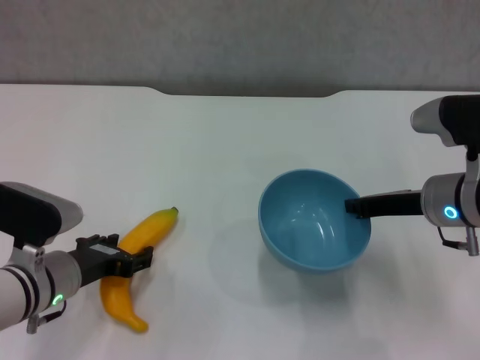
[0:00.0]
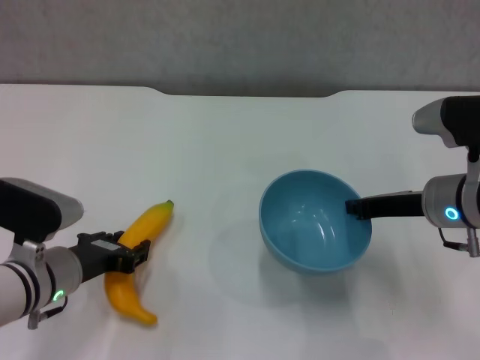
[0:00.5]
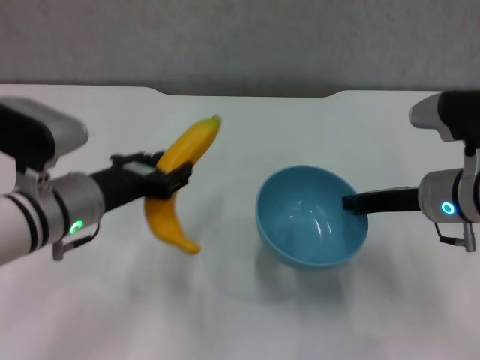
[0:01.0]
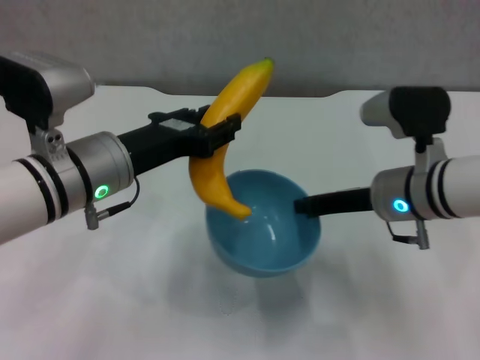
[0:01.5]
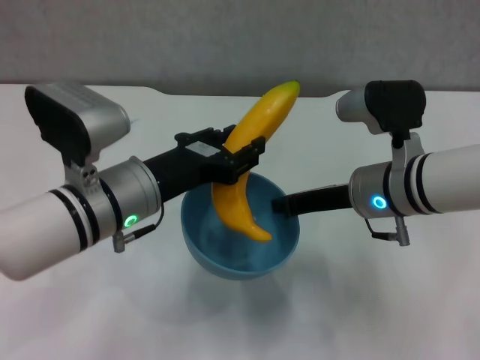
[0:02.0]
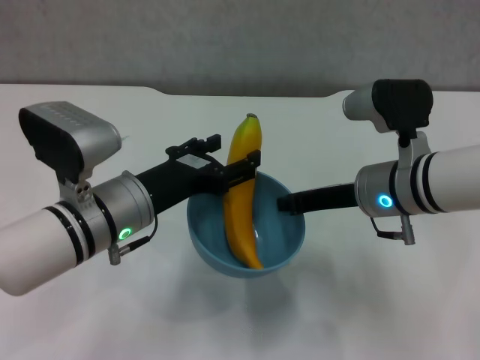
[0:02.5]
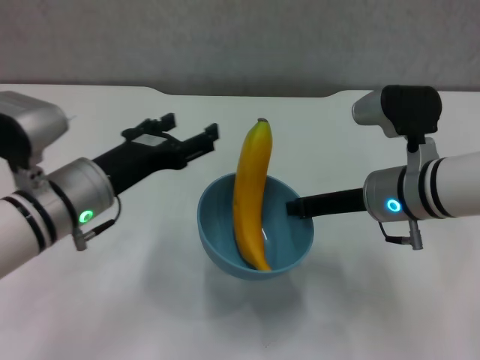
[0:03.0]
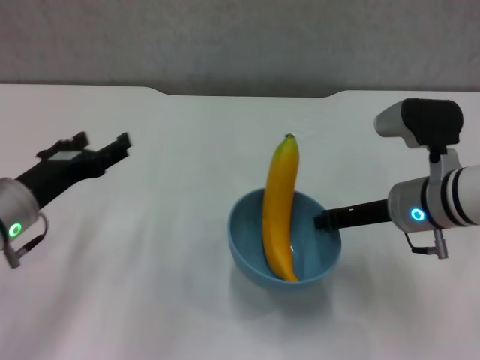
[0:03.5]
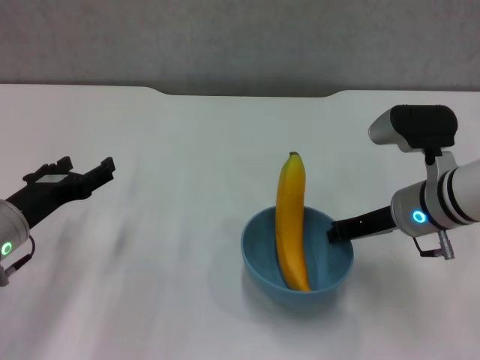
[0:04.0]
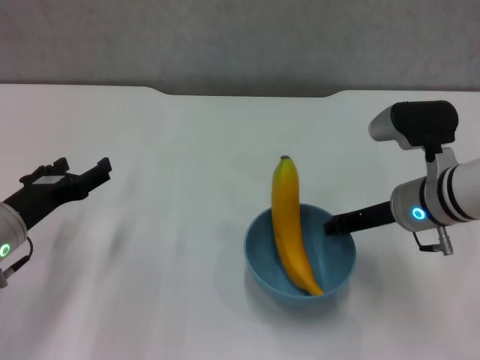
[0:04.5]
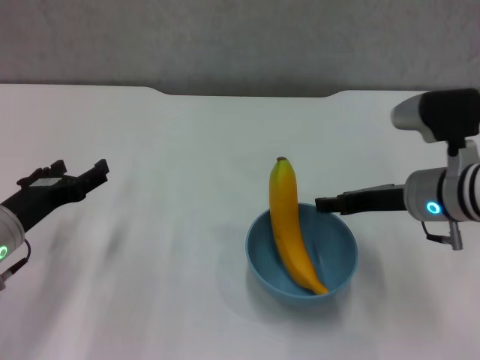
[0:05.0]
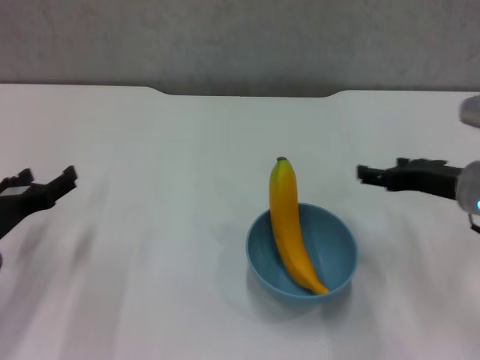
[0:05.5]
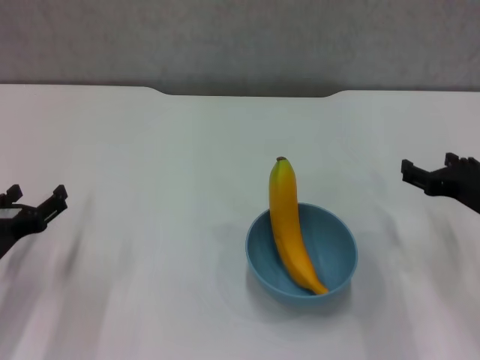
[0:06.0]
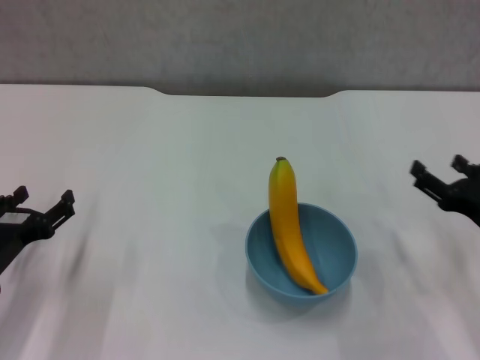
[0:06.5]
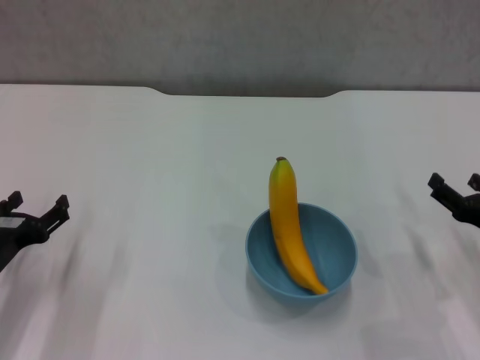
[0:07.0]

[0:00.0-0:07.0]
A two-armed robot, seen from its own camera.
Step, 0:00.5 to 0:02.0: Place the banana in the blue bowl with left gripper.
Step, 0:02.5 to 0:05.0: Place the bowl on the table with right gripper.
0:00.0 to 0:02.0: The left gripper moves upward and to the right, some 15 cm, and closes; the right gripper travels to the left by approximately 5 cm.
0:02.0 to 0:03.5: The left gripper moves to the left, approximately 10 cm, and opens.
0:03.5 to 0:05.0: The right gripper opens.
0:05.0 to 0:07.0: The left gripper changes place by roughly 5 cm. Meanwhile the right gripper moves to the right, backward and downward, approximately 15 cm, and opens its fingers.
